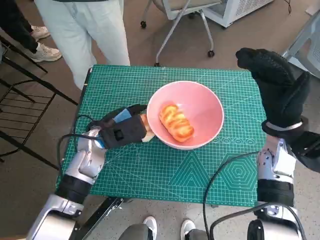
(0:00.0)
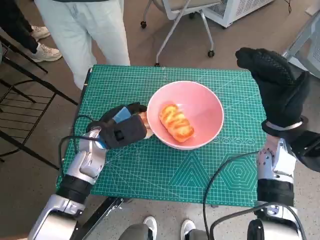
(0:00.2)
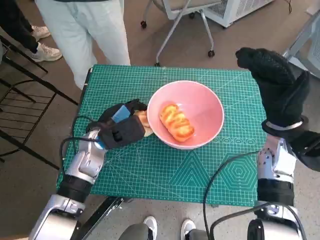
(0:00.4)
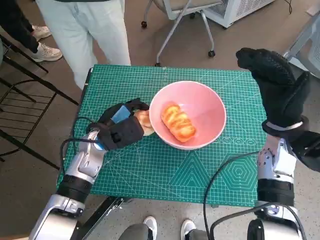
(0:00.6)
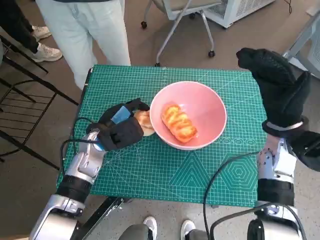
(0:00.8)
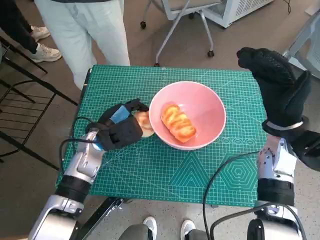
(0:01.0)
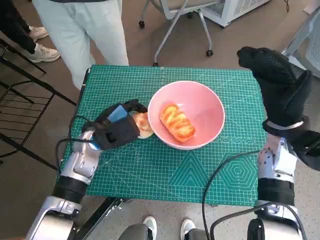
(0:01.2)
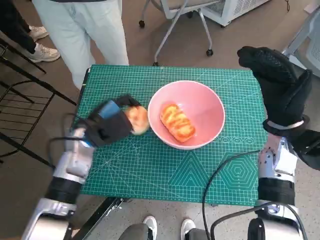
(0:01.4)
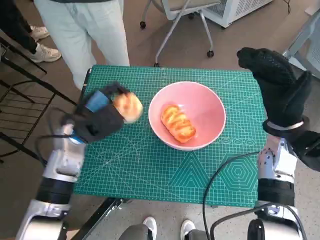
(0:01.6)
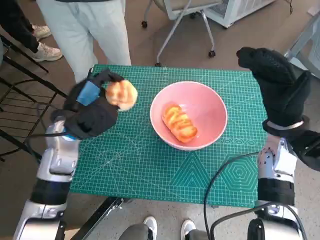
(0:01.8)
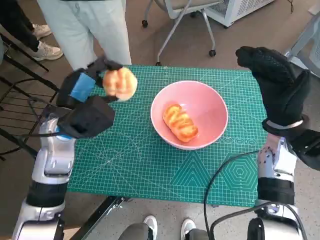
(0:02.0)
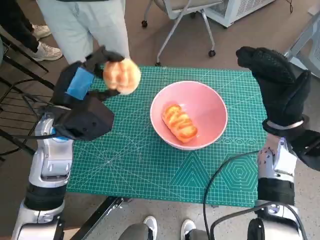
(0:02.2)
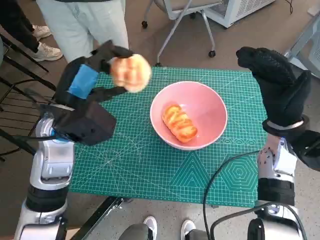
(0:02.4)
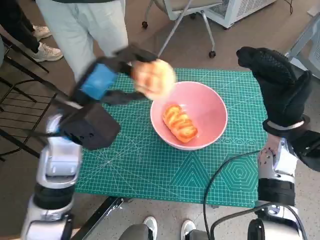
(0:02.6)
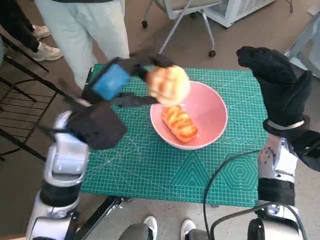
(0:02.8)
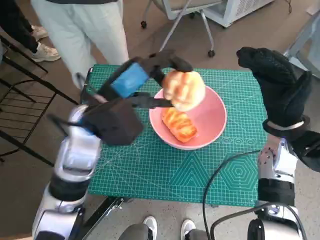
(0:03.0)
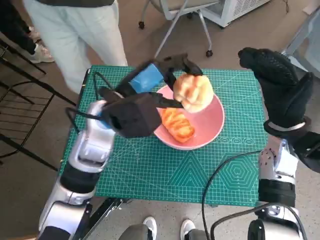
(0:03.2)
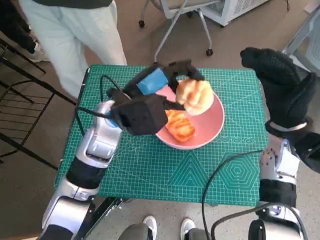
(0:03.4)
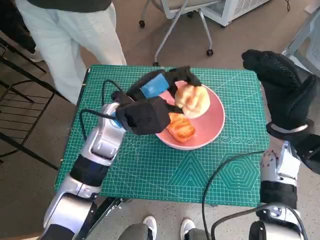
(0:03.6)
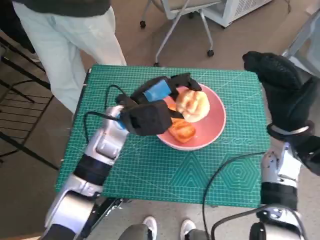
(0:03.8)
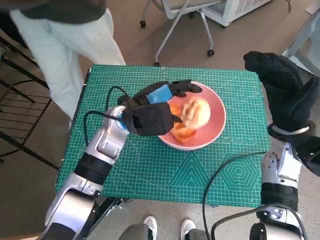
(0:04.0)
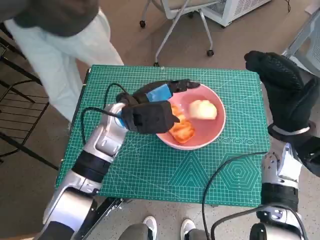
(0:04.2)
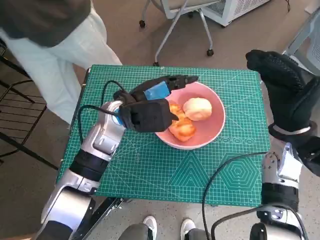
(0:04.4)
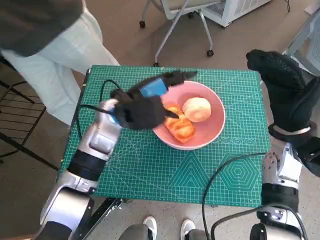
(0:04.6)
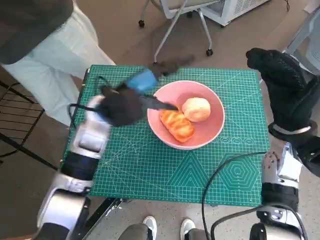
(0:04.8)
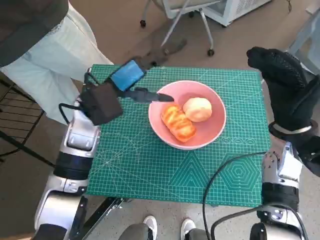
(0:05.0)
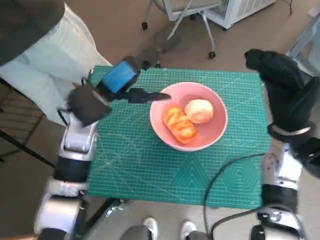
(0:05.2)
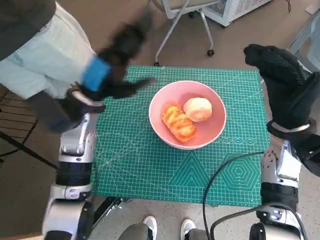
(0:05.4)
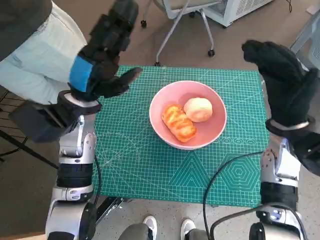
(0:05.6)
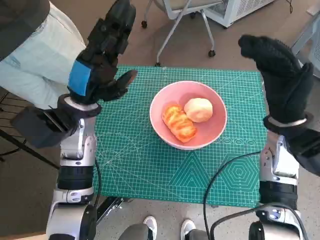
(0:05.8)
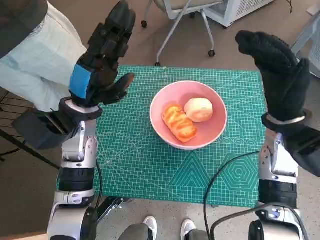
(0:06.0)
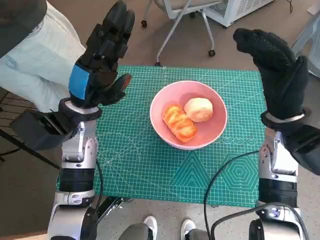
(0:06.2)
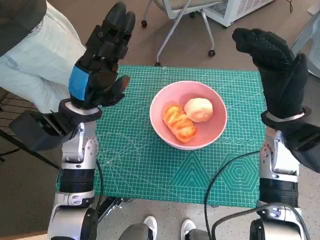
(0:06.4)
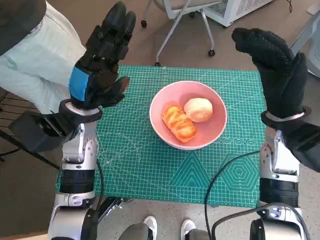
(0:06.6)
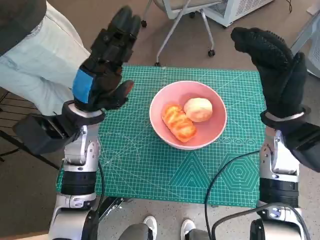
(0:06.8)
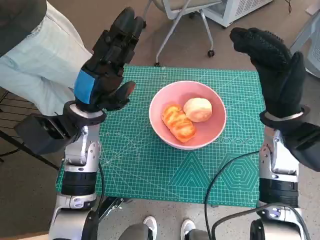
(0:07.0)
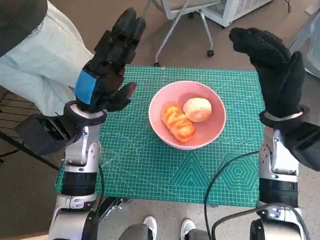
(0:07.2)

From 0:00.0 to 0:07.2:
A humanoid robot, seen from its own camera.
Task of the whole recording: Push the bowl into the center of the table and put the bread into the bowl.
Step, from 0:00.8 to 0:04.6: Place the round bread in pink bowl with left hand.
From 0:00.0 to 0:01.4: The hands stay close to where they were, moving slightly.
From 0:01.4 to 0:02.8: The left hand goes about 10 cm upward.
From 0:02.8 to 0:04.4: The left hand heads forward and downward, covering roughly 10 cm.
From 0:04.4 to 0:05.8: The left hand moves to the left, approximately 5 cm.
From 0:05.8 to 0:07.2: The hands make only small movements.

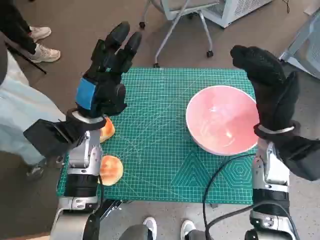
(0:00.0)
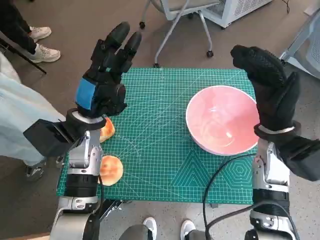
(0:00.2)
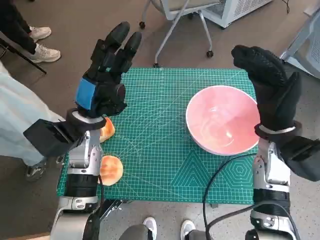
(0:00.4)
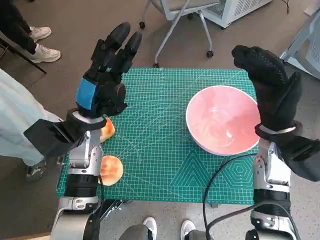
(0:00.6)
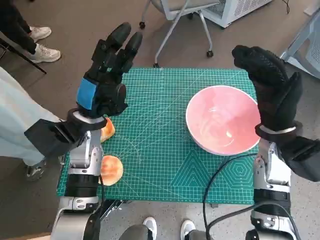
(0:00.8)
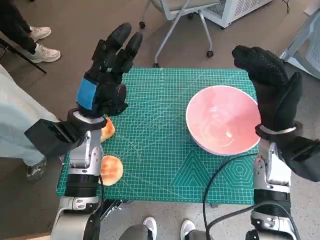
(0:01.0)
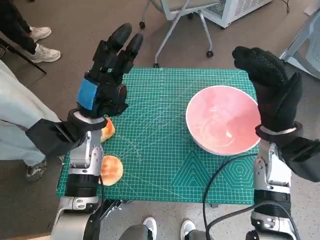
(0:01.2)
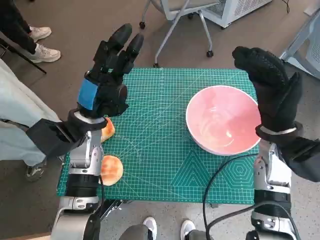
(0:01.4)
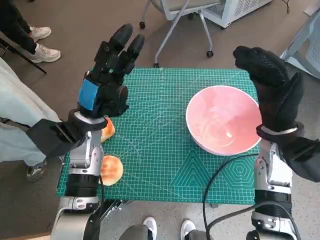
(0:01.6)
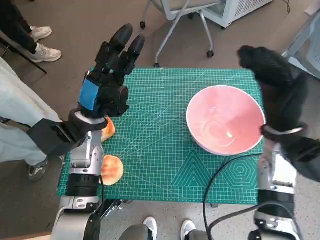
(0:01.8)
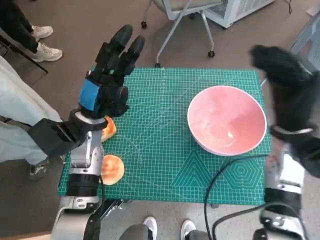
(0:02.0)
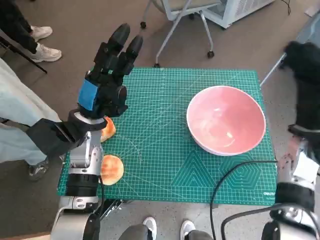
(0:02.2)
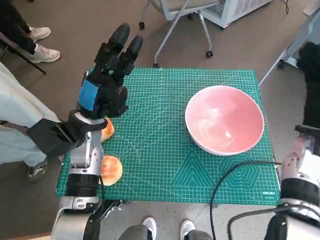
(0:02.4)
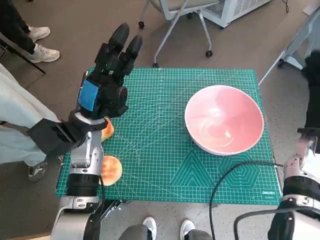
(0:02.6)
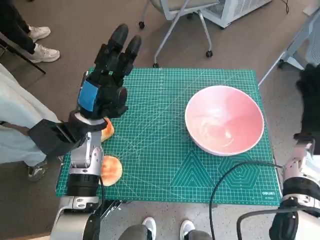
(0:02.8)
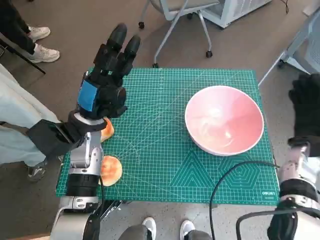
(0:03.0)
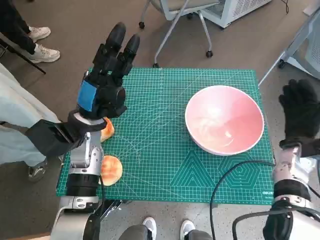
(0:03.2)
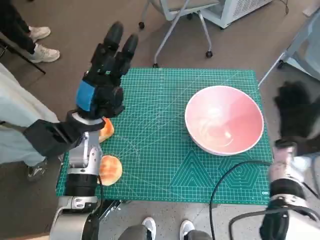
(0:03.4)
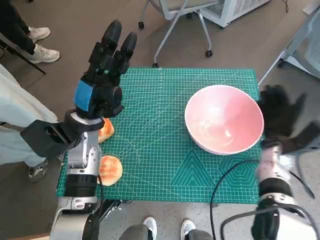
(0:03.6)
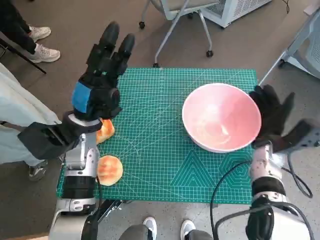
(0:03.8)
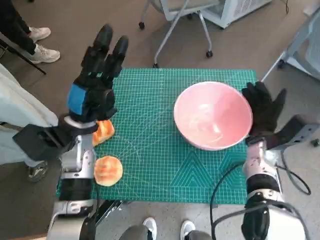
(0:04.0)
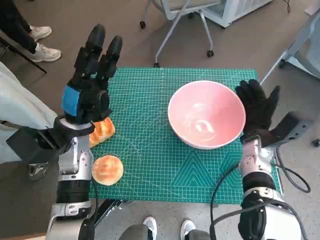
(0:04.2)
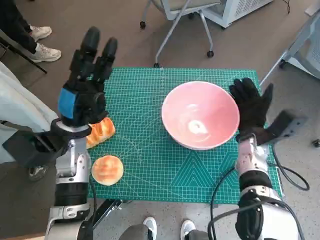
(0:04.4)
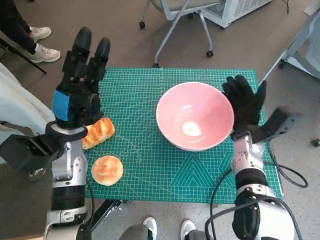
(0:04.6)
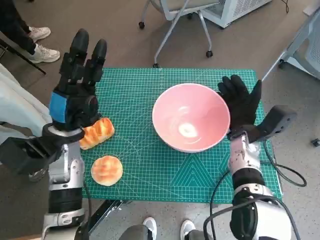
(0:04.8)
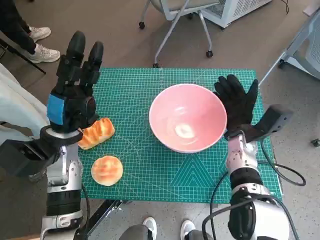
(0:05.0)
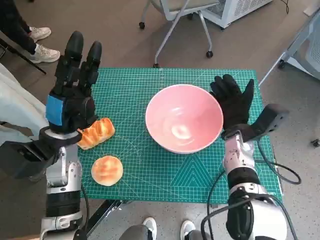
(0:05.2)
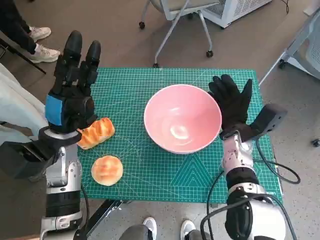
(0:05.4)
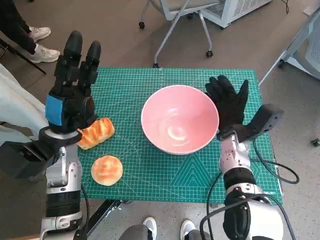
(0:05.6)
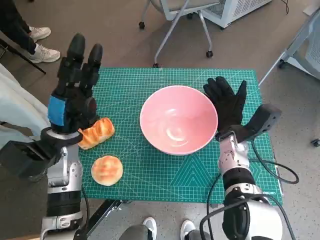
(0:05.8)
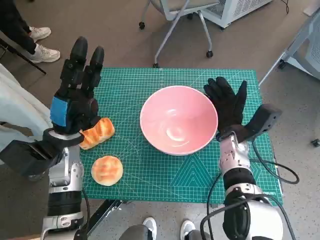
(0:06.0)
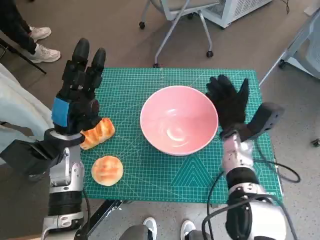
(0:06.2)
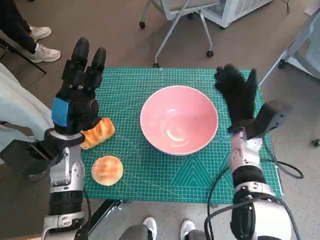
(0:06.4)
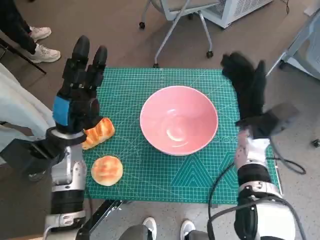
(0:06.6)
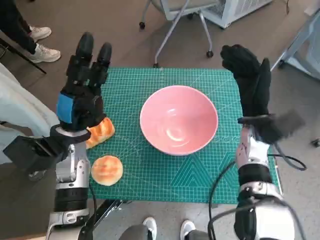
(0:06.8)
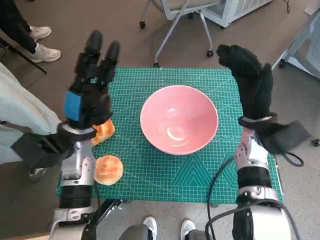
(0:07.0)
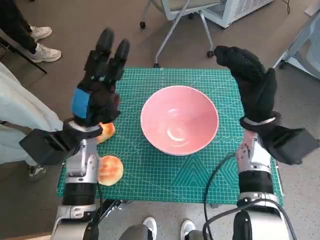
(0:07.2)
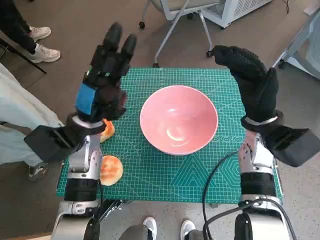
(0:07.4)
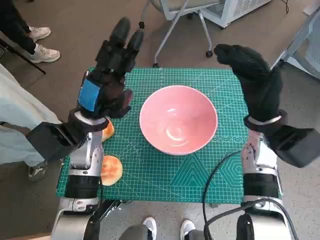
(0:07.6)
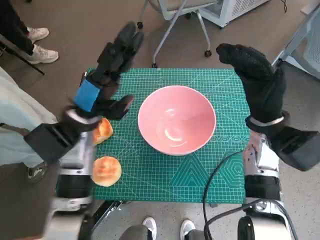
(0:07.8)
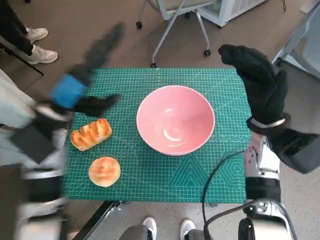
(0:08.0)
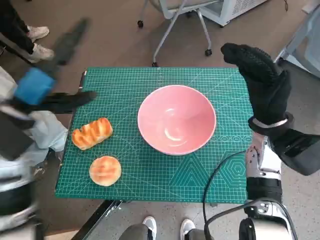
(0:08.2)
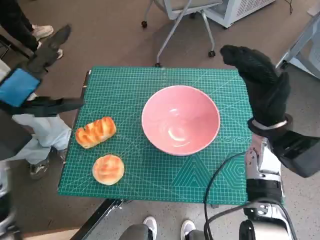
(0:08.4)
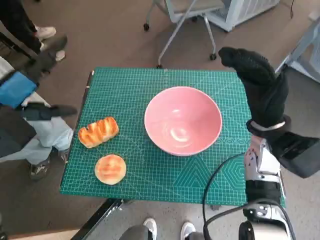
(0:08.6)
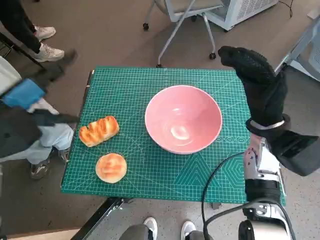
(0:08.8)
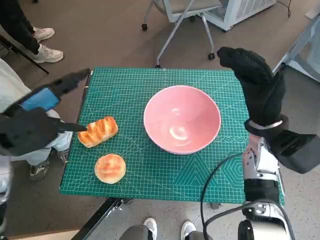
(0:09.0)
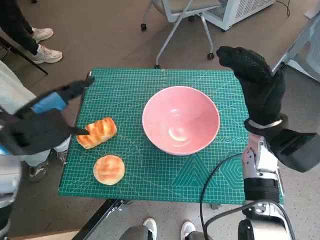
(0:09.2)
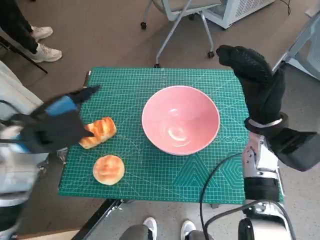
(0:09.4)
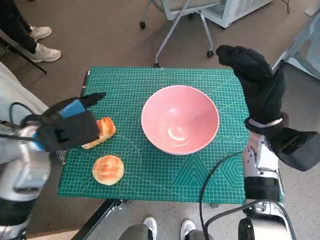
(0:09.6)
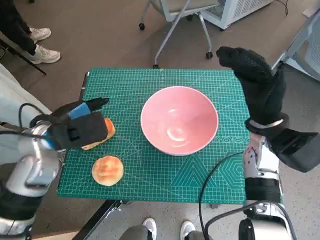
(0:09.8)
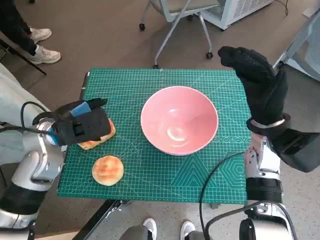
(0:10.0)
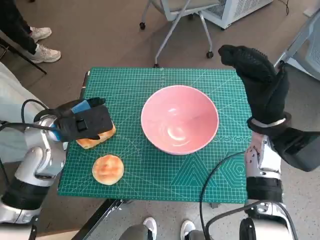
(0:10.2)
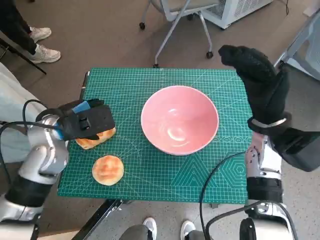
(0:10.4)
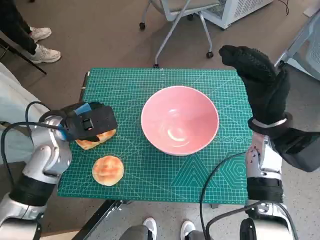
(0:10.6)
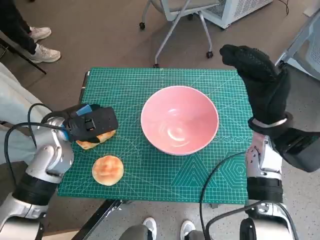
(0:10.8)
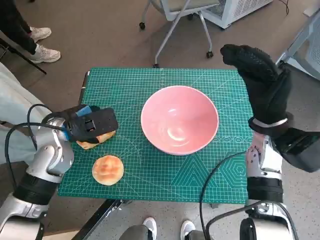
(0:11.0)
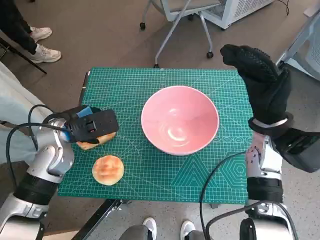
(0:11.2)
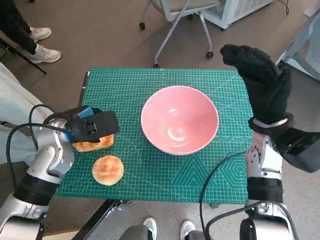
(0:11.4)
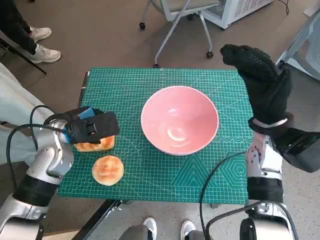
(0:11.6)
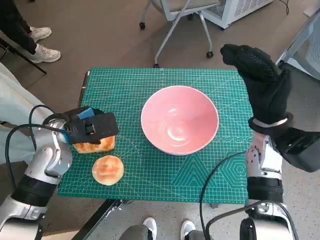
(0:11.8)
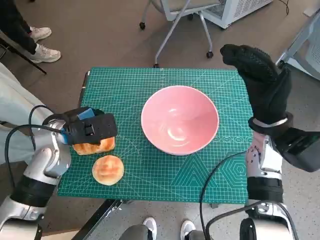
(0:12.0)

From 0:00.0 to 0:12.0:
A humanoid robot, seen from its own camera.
Task of the whole recording: Push the bowl into the center of the table and put the bread into the bowl.
Step, from 0:00.0 to 0:06.4: Move the pink bowl to the center of table with right hand.
From 0:01.6 to 0:03.0: The right hand heads to the right and downward, covering some 10 cm.
From 0:03.0 to 0:04.4: The right hand travels to the left by about 10 cm.
From 0:06.0 to 0:07.6: The left hand moves some 5 cm. The right hand is displaced upward by roughly 10 cm.
From 0:07.6 to 0:09.0: The left hand goes roughly 15 cm to the left, upward and backward.
From 0:09.0 to 0:10.4: The left hand heads downward and forward, covering roughly 10 cm.
From 0:10.4 to 0:12.0: There are only small adjustments of the hands.

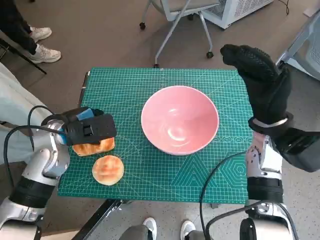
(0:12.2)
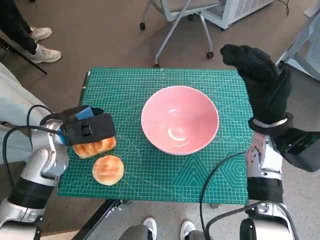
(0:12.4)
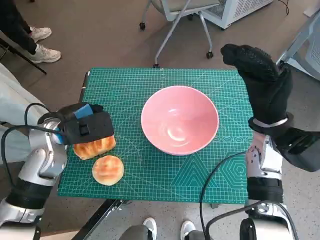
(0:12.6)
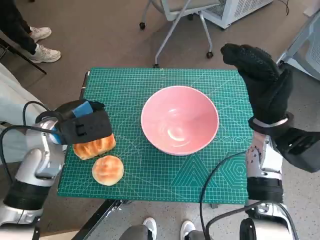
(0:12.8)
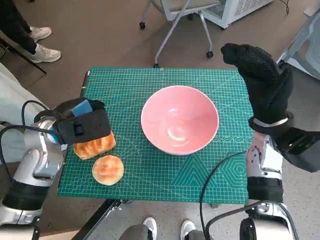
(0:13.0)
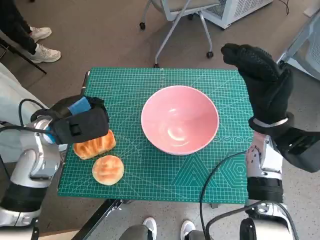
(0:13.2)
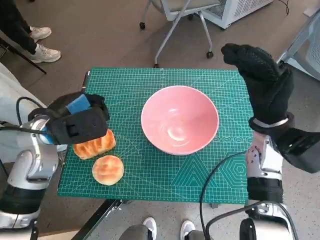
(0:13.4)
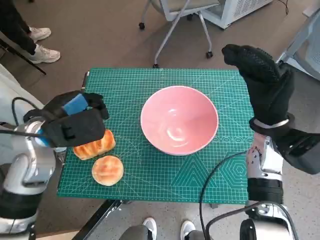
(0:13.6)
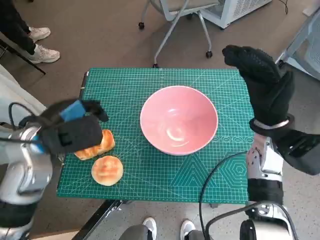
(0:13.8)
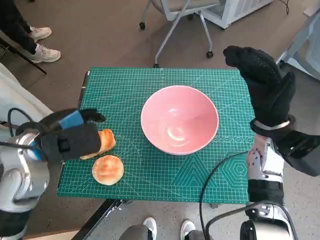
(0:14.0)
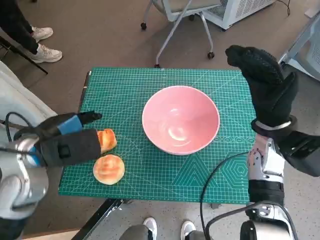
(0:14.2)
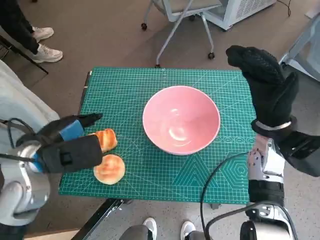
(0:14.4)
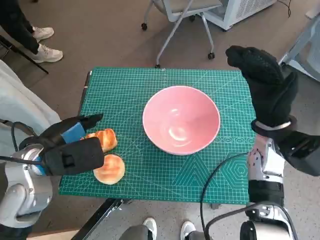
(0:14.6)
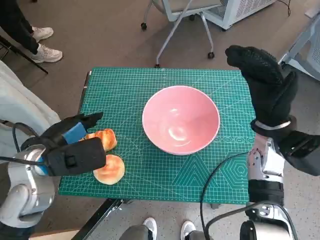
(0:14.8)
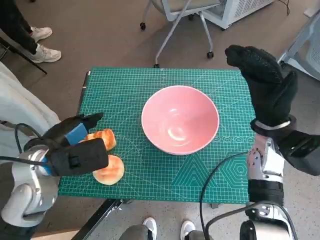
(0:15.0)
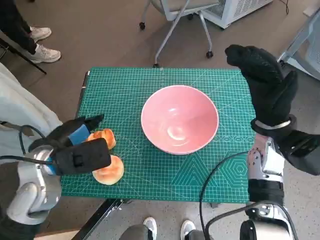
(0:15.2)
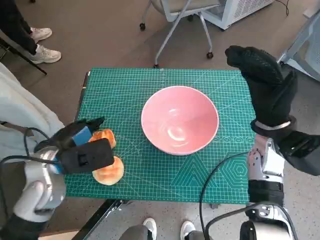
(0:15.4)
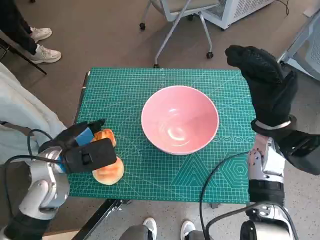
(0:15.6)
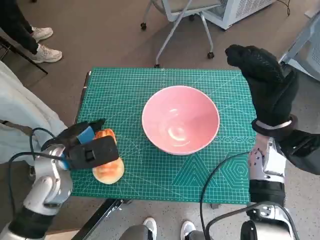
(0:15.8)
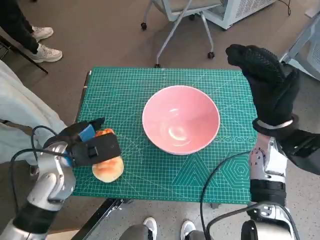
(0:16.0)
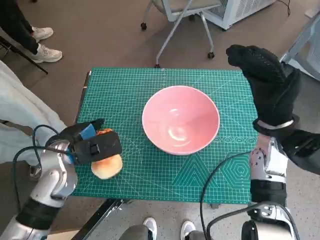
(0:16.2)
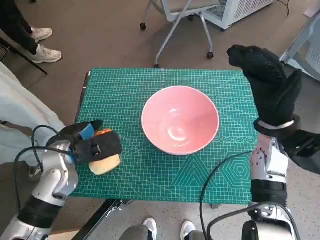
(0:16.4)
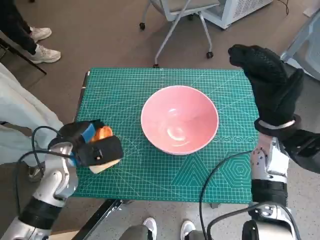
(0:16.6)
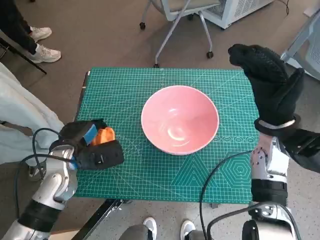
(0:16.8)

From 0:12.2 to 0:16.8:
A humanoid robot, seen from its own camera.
Task of the whole recording: Push the bowl into the center of the table and put the bread into the bowl.
Step, from 0:12.2 to 0:16.6: Grasp the long bread with left hand.
From 0:12.2 to 0:13.8: The left hand shifts by some 5 cm.
From 0:13.8 to 0:15.2: The hands move only a little.
From 0:15.2 to 0:16.8: The left hand is displaced downward by some 5 cm.
